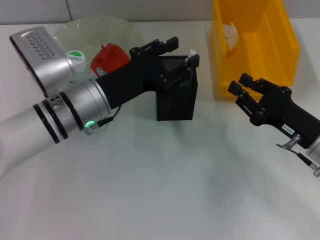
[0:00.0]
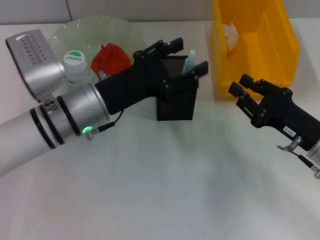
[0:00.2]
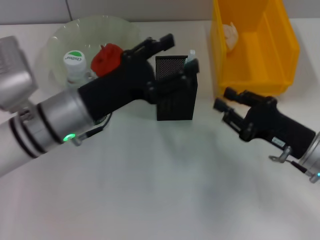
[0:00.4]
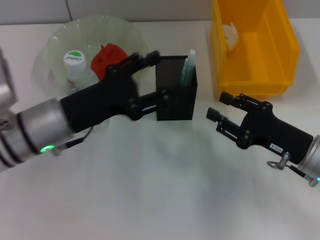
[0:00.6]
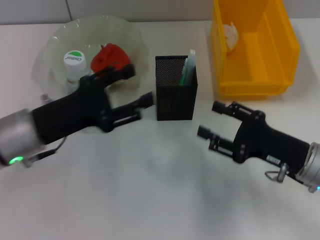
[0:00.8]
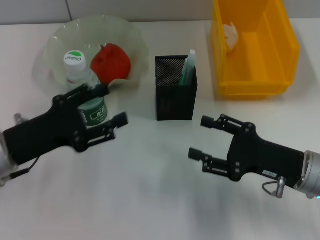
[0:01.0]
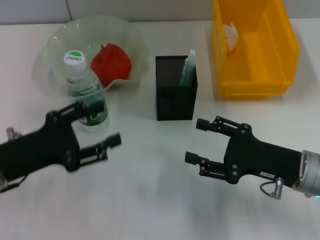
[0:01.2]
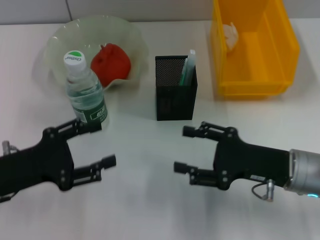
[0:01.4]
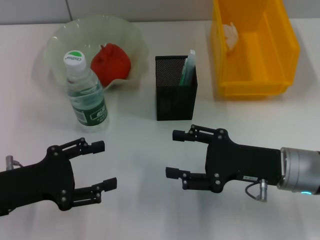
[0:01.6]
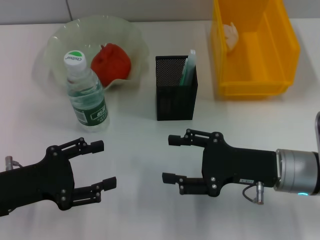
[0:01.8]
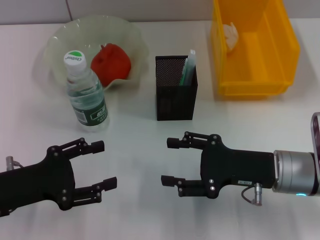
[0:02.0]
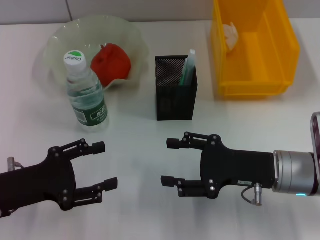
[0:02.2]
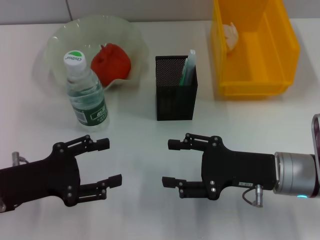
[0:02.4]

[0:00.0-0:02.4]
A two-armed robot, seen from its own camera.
0:00.0 to 0:01.2: The right gripper opens up, while the left gripper heads to the left and backward, covering roughly 15 cm.
0:01.2 to 0:02.4: There are only small adjustments of the grippers.

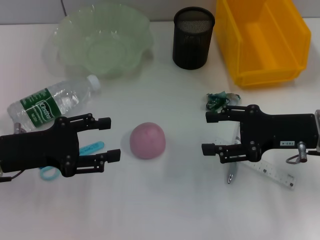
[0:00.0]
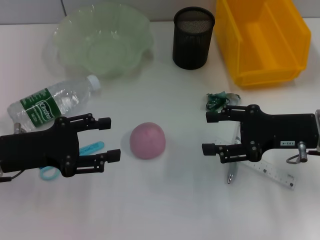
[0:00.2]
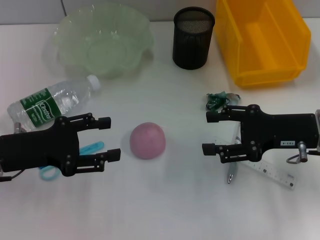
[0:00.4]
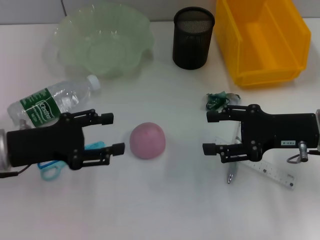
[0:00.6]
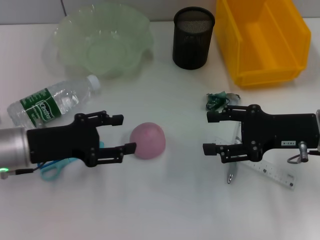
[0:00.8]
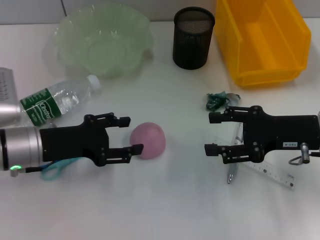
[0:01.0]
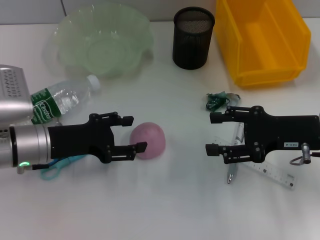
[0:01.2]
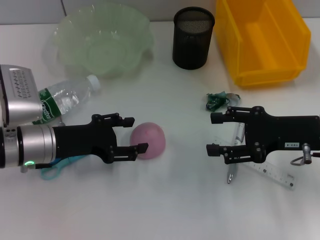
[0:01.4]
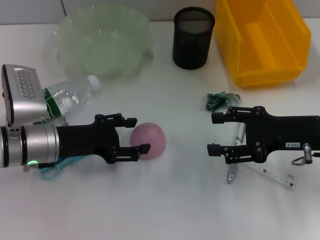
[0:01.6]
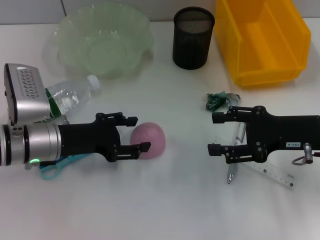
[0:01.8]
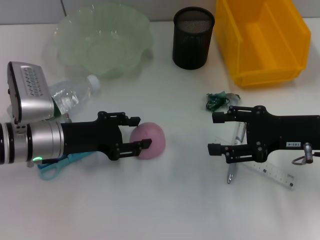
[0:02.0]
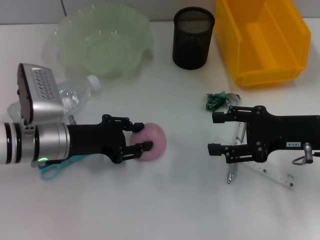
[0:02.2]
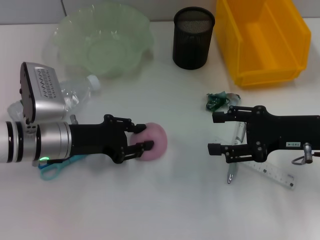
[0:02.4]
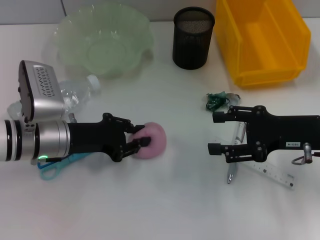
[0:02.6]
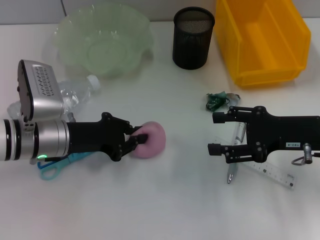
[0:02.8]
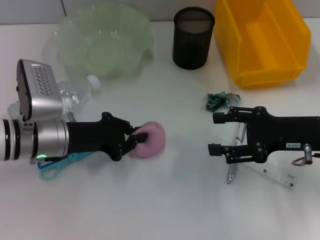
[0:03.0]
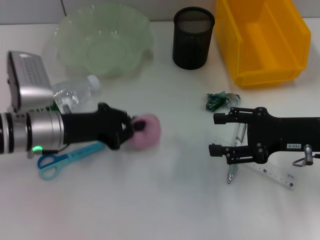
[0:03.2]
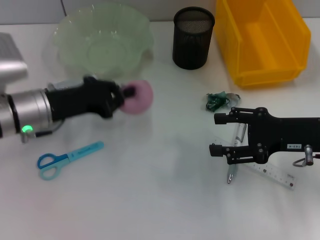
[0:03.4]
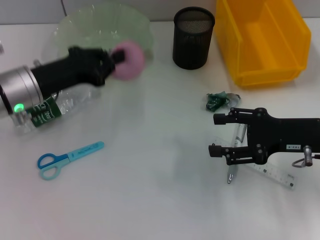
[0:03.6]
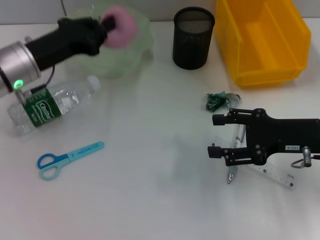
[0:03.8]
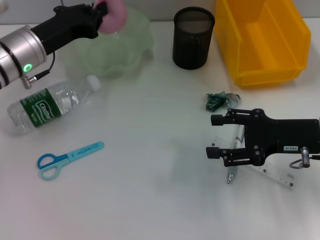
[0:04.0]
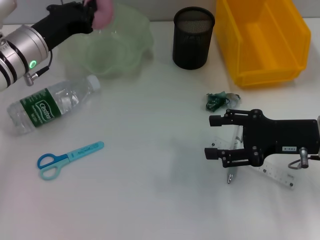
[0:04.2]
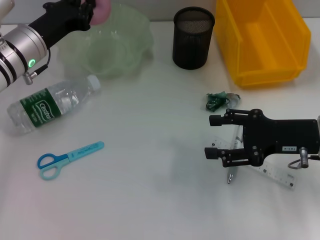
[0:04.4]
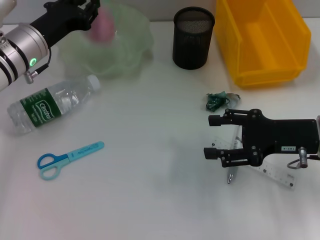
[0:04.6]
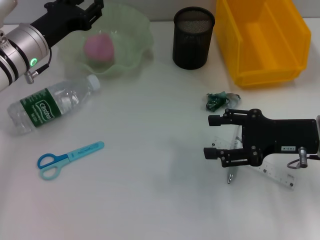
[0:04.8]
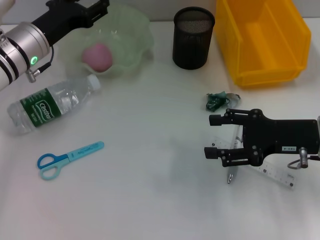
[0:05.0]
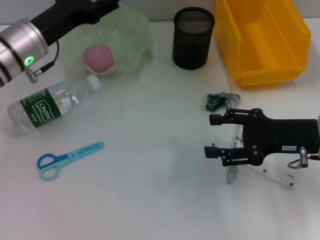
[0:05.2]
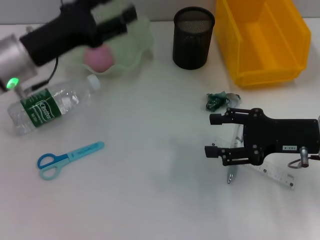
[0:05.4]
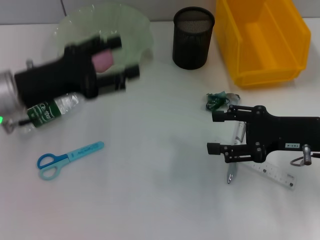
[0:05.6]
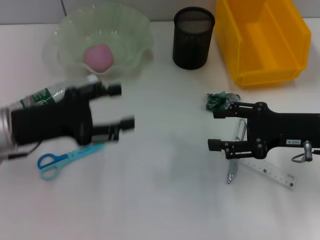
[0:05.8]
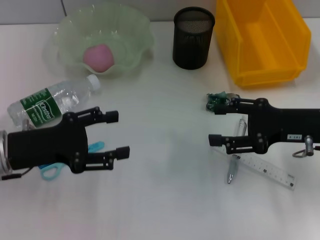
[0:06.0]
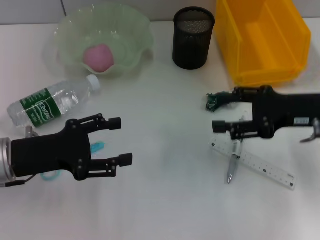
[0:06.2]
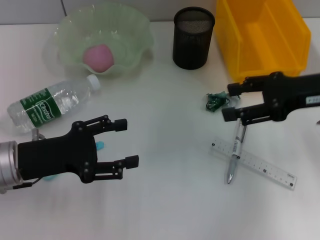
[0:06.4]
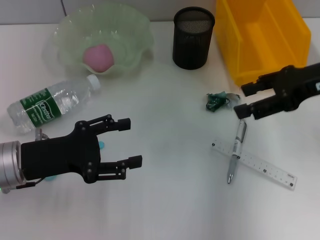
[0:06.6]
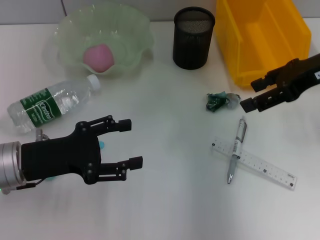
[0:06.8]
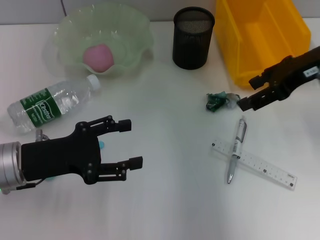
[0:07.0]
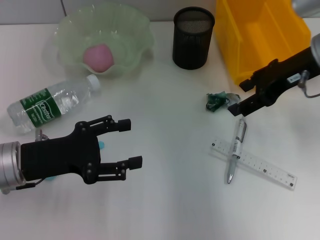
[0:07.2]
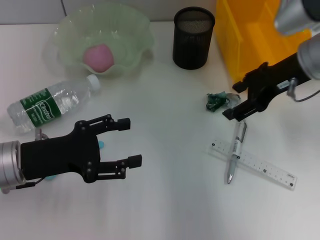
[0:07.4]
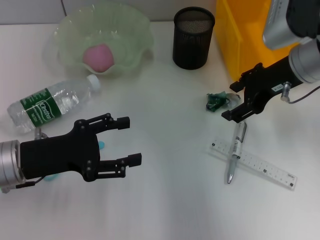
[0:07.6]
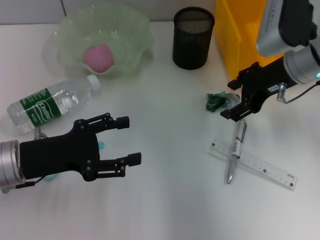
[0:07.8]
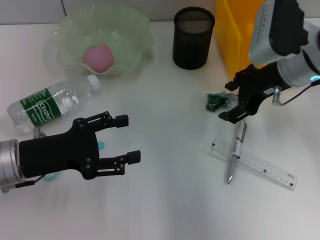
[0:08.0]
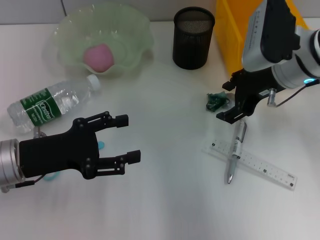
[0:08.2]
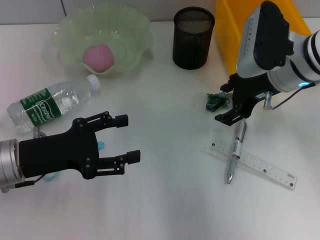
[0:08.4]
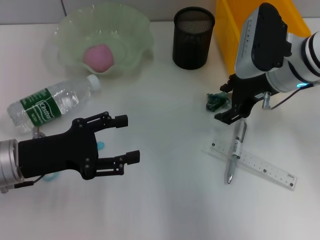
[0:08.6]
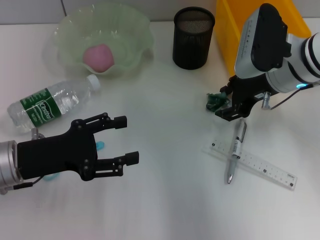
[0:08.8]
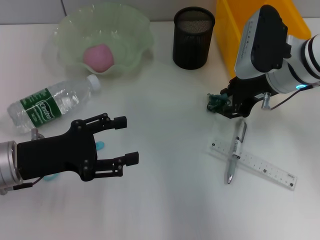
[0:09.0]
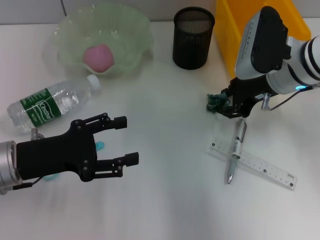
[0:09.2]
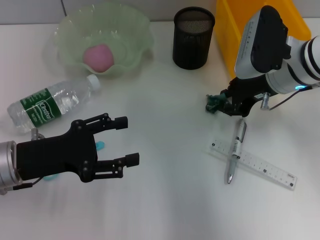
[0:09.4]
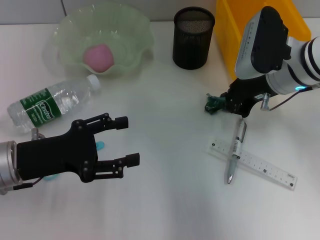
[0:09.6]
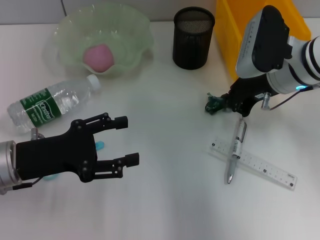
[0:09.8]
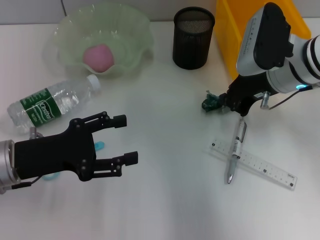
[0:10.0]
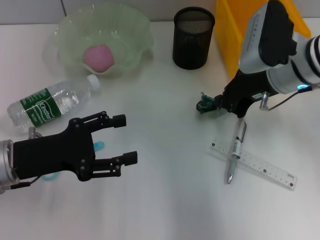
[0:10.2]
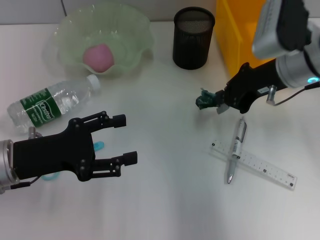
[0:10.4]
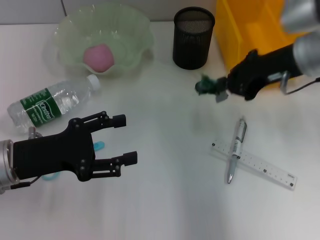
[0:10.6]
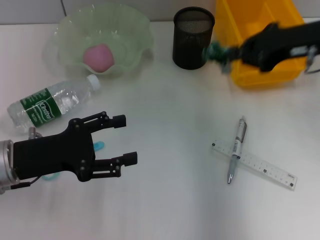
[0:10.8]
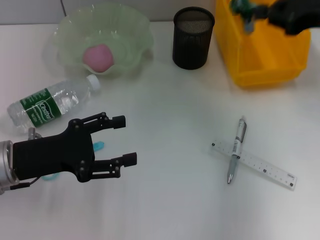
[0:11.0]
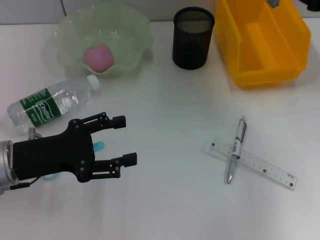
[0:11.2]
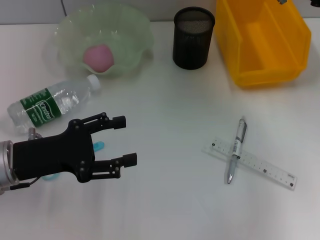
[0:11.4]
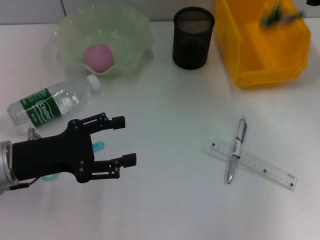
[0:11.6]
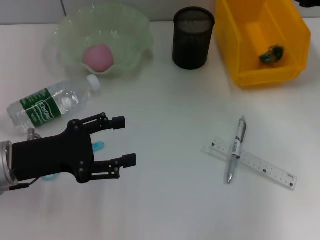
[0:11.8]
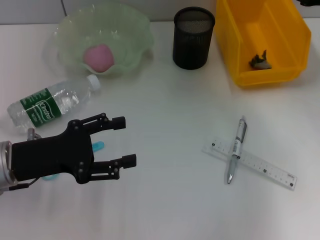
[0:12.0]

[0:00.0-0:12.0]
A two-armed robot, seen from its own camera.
Step, 0:00.0 to 0:02.8: Grab the peach with the left hand.
Step, 0:03.0 to 0:04.8: Place the peach into the fruit bowl with the left hand.
Step, 0:05.2 to 0:09.6: Grab the plastic with the right hand.
0:00.0 to 0:01.6: The left gripper heads to the right, covering roughly 5 cm.
0:01.6 to 0:03.0: The left gripper closes its fingers.
0:03.0 to 0:04.4: The left gripper is displaced forward and upward by some 10 cm.
0:04.4 to 0:06.0: The left gripper shifts about 15 cm backward, and opens.
0:06.0 to 0:07.6: The right gripper moves forward, upward and to the left, roughly 10 cm.
0:07.6 to 0:09.0: The grippers make only small movements.
0:09.0 to 0:10.4: The right gripper closes.
0:10.4 to 0:12.0: The right gripper heads to the right, covering approximately 10 cm, and opens up.

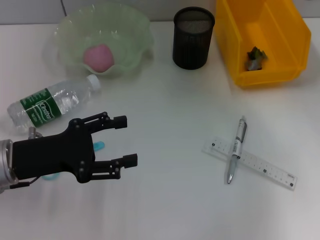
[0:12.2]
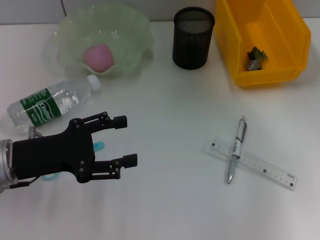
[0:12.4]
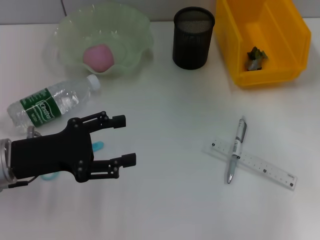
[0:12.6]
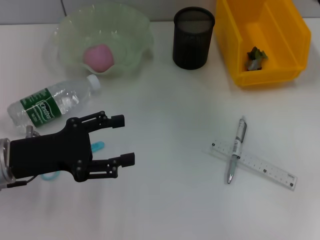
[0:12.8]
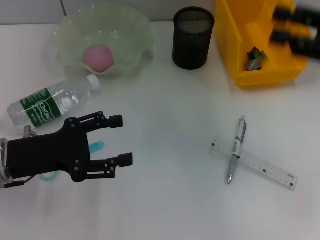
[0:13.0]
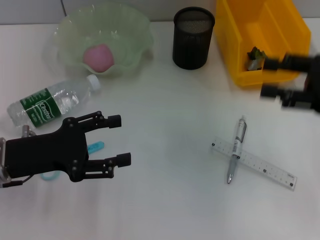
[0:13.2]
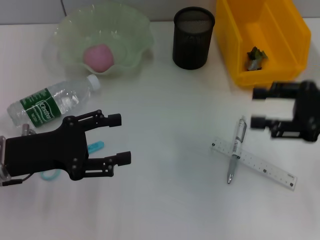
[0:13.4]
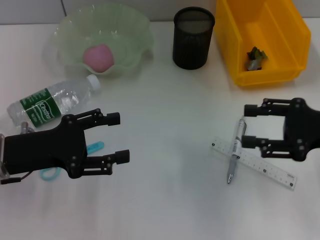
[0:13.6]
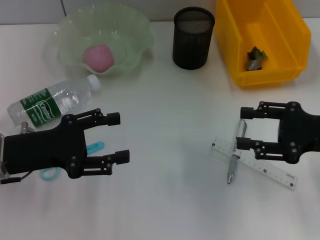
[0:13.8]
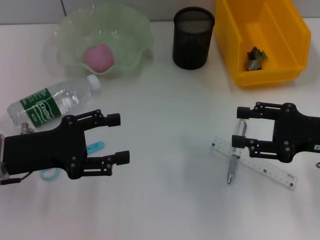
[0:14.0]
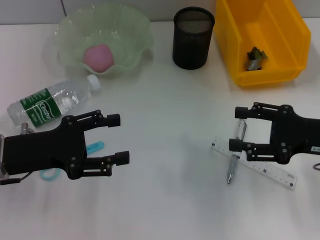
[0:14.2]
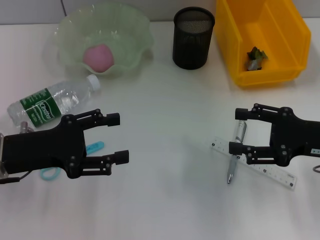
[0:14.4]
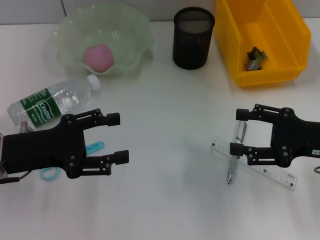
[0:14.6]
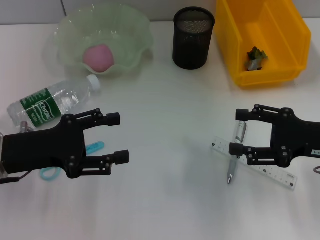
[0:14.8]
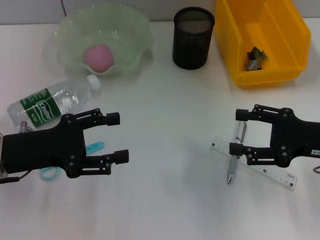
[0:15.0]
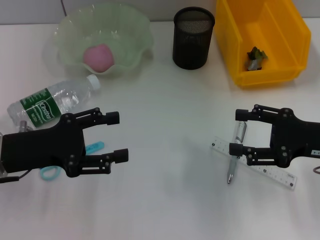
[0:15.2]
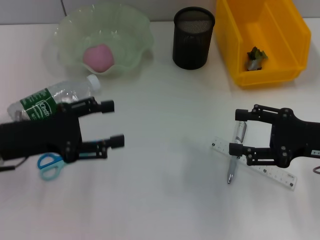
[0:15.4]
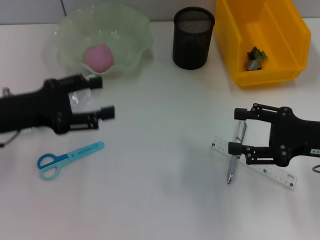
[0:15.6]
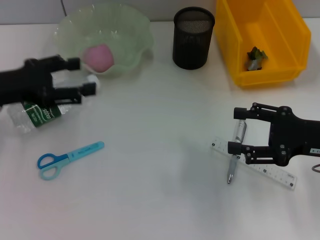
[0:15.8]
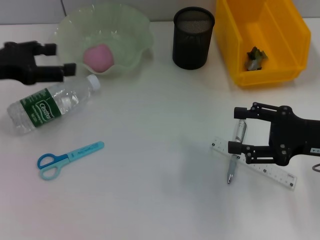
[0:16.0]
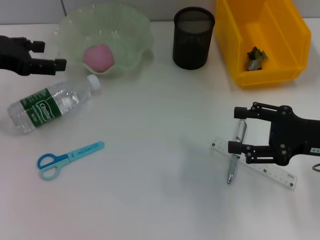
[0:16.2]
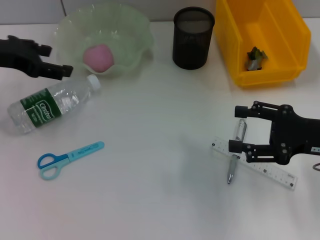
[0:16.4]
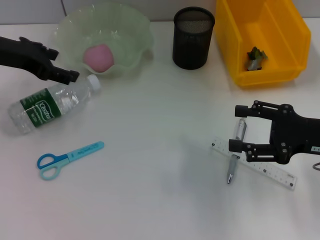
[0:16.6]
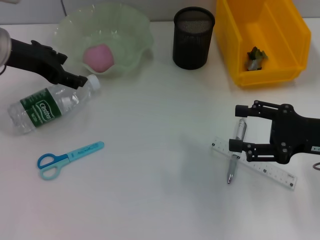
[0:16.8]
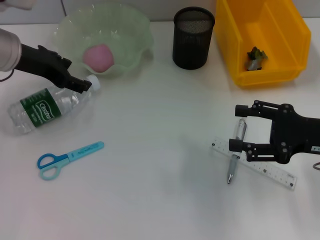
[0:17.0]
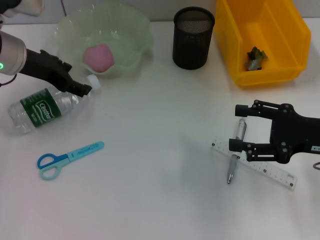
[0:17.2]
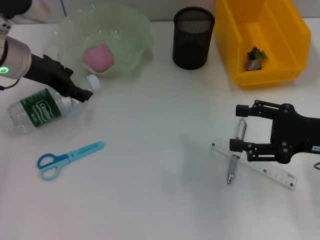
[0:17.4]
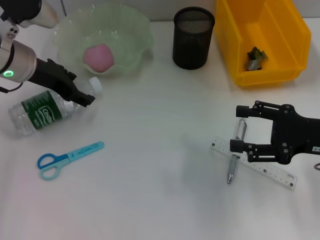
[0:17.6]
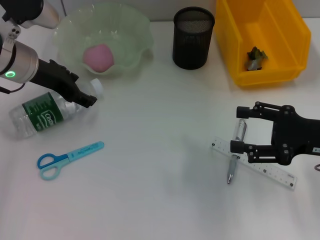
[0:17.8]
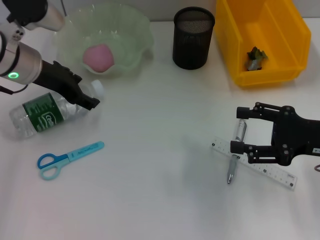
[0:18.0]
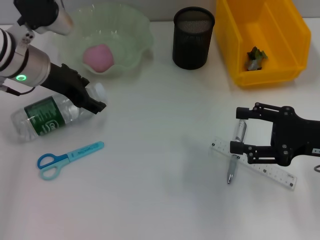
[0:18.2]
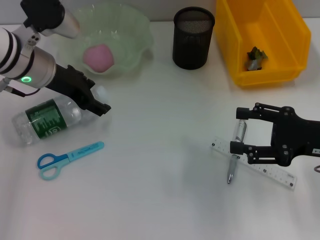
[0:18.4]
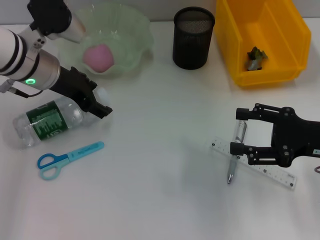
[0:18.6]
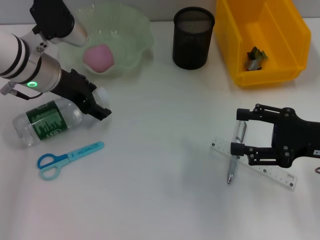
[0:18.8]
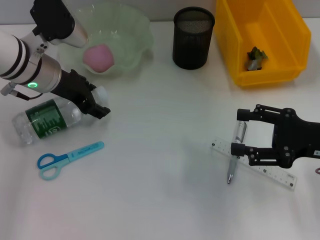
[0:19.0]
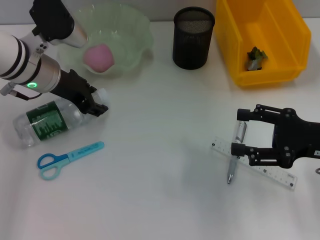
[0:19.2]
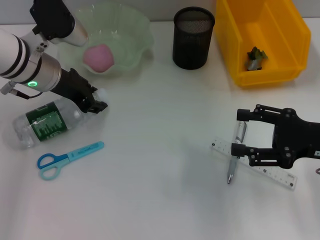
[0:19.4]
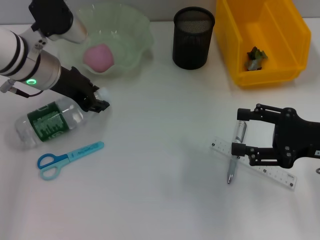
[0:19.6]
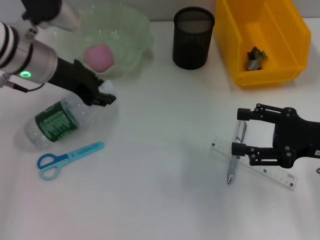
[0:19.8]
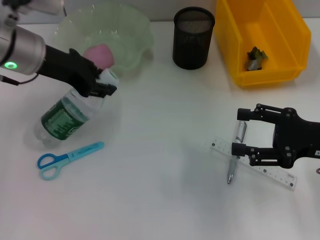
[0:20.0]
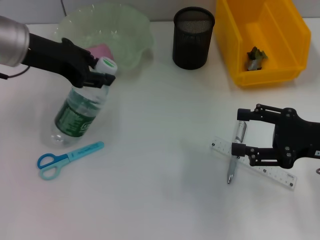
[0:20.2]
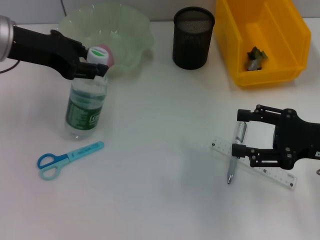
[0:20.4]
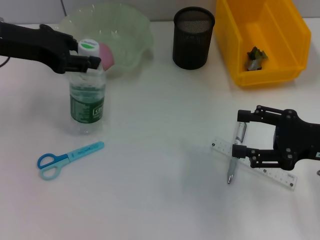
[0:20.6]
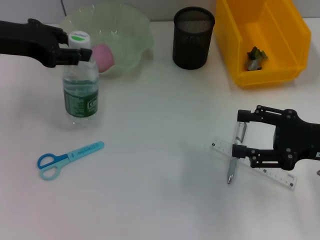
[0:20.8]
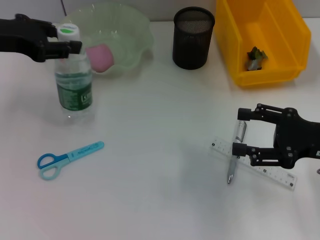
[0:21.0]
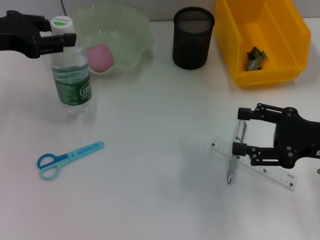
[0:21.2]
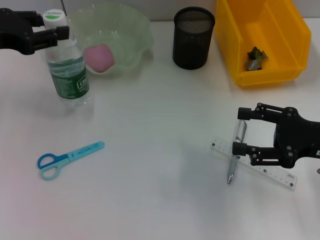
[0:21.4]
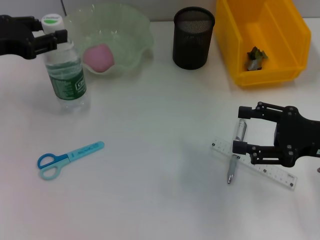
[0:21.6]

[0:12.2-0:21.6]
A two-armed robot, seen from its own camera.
Step, 0:12.2 to 0:19.4: Grab the water bottle with the left hand.
0:12.2 to 0:13.8: The right gripper moves backward and downward, approximately 15 cm.
0:13.8 to 0:15.4: Both grippers stay about where they are.
0:15.4 to 0:17.0: The left gripper is displaced forward and upward by about 15 cm.
0:17.0 to 0:18.4: The grippers stay close to where they were, moving slightly.
0:18.4 to 0:20.0: The left gripper closes its fingers.
0:20.0 to 0:21.6: The left gripper travels to the left by about 10 cm.
